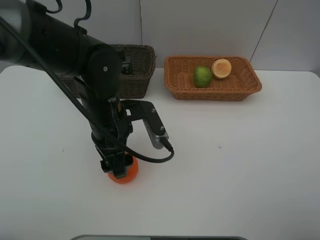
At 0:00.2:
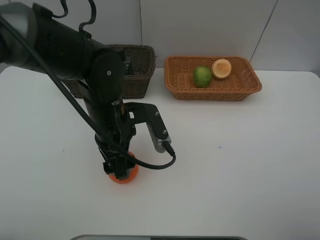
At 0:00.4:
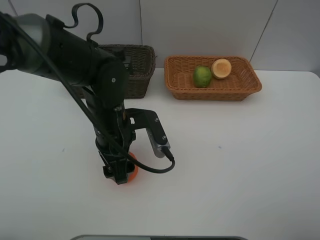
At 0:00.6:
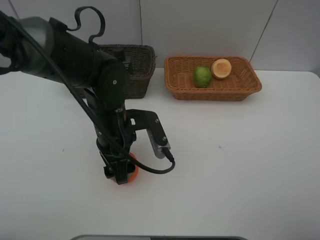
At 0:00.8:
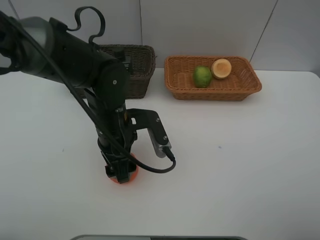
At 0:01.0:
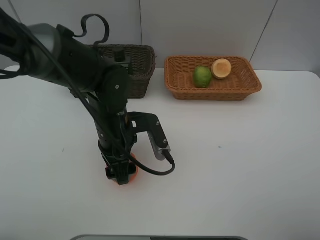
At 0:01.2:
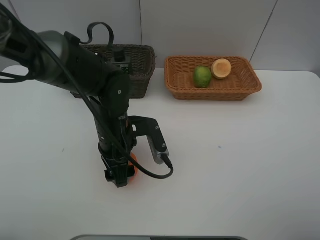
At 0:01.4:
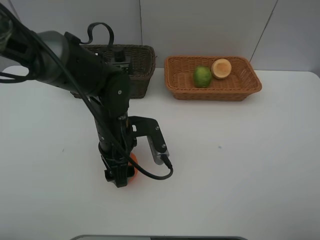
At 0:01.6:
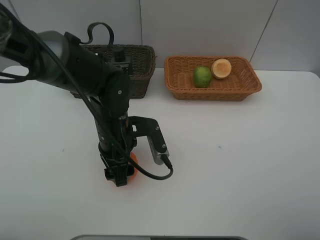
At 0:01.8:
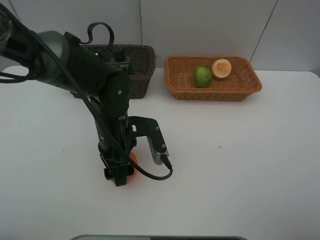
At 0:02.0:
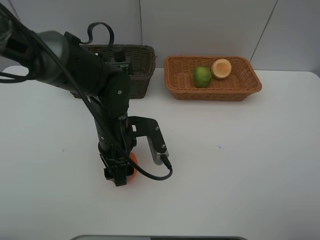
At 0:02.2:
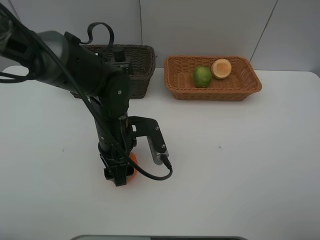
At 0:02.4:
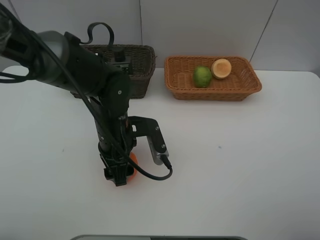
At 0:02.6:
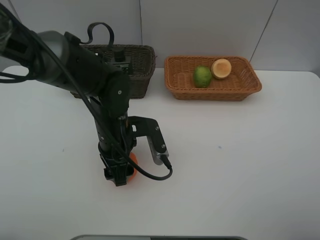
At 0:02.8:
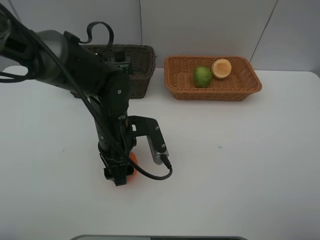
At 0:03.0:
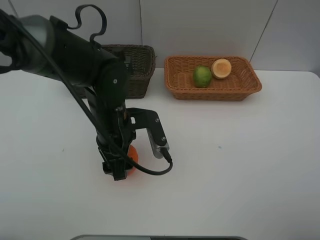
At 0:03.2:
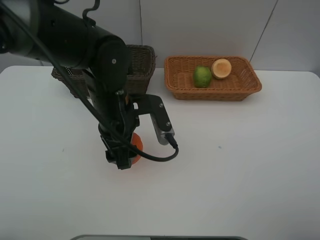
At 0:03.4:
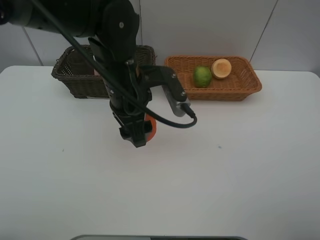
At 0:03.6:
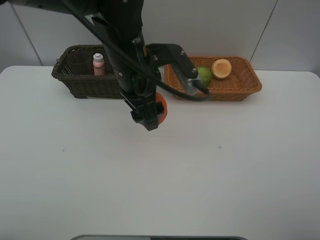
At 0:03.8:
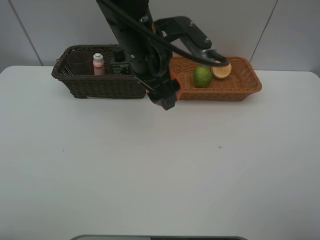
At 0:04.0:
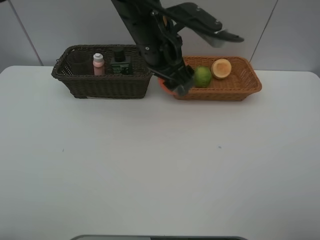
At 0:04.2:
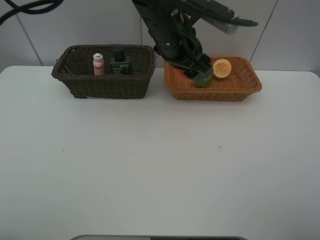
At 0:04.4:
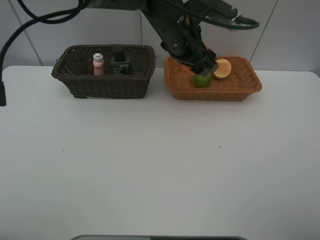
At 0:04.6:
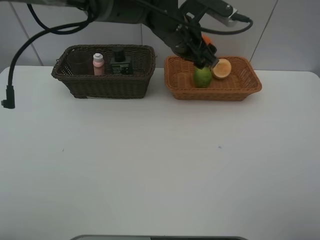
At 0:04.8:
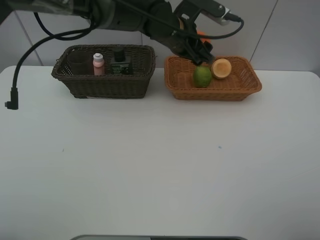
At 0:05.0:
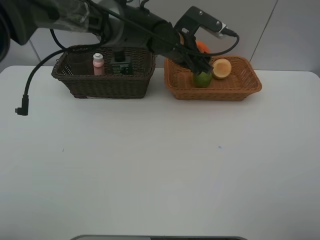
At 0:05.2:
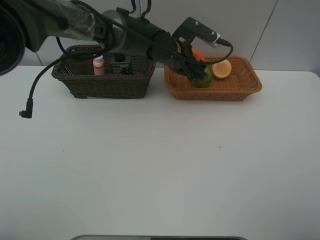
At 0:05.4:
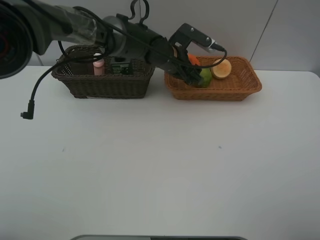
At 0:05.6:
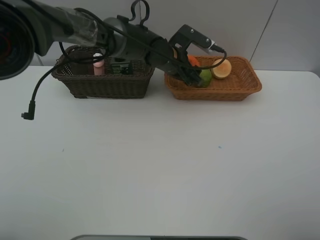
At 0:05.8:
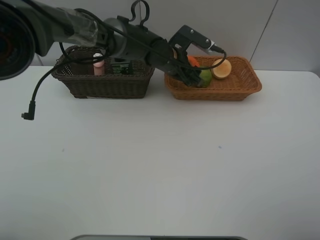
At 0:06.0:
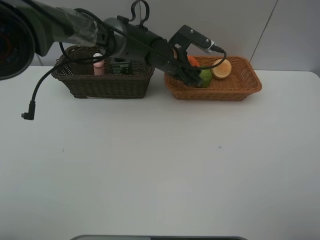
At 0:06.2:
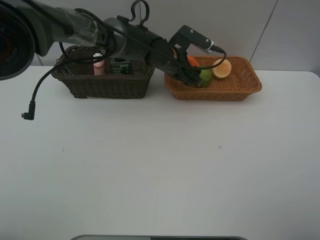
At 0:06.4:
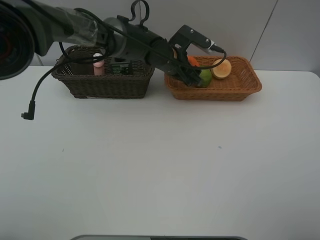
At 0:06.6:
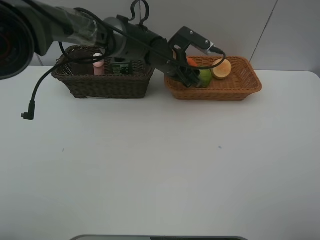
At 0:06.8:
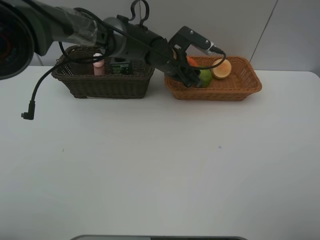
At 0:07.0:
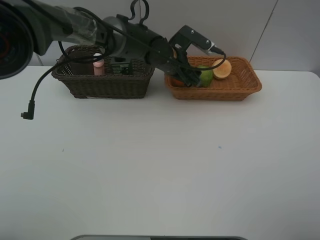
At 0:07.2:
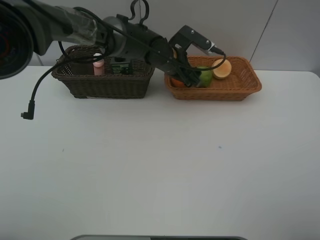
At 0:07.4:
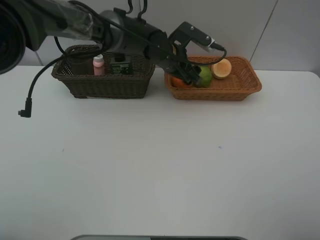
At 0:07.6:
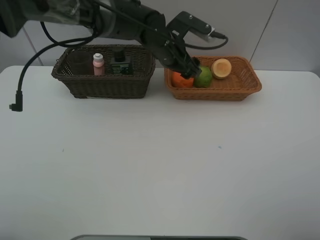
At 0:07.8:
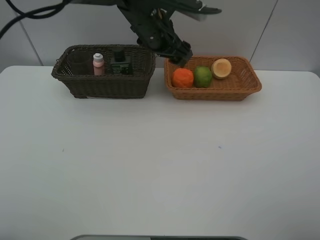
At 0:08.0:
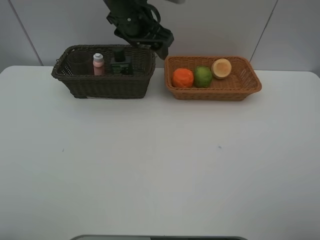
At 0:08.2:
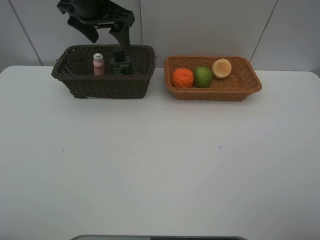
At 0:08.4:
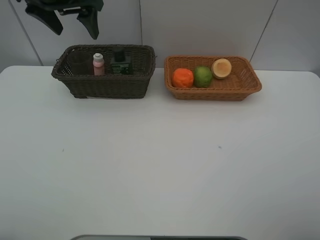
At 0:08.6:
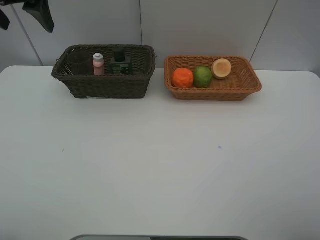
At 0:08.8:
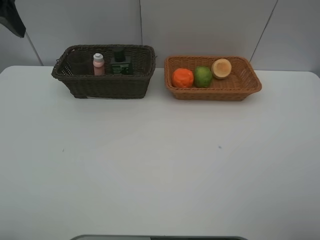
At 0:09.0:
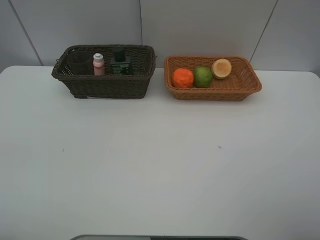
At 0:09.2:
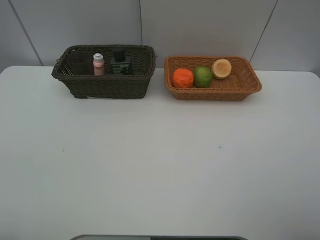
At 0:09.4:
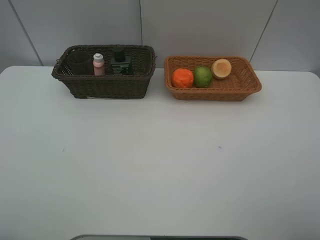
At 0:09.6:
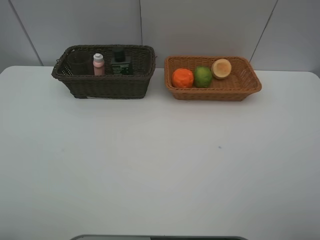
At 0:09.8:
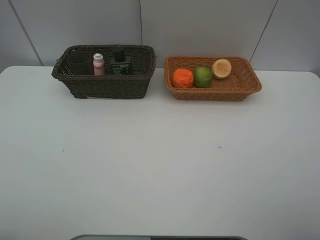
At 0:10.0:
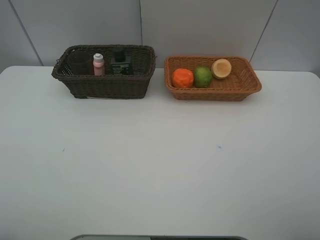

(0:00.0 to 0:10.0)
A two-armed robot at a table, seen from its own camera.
Task of the whole recording: place multiple objects separately in different baskets.
0:00.0 - 0:01.4: The grippers stay close to where they were, moving slightly.
0:01.4 - 0:02.8: The two grippers keep their place.
0:02.8 - 0:04.2: The left gripper travels upward, forward and to the right by approximately 20 cm.
0:04.2 - 0:05.8: The left gripper travels downward and forward by about 15 cm.
0:05.8 - 0:07.2: Both grippers stay put.
0:07.2 - 0:08.6: The left gripper is displaced to the left and upward by roughly 35 cm.
0:08.6 - 0:10.0: The left gripper is displaced backward by about 35 cm.

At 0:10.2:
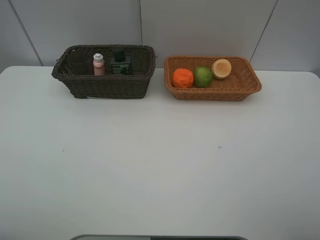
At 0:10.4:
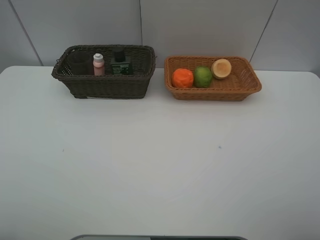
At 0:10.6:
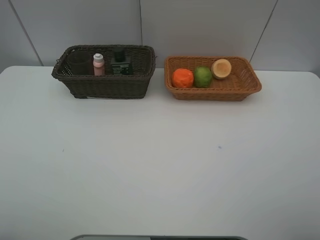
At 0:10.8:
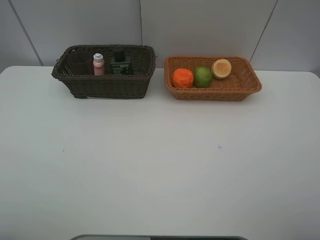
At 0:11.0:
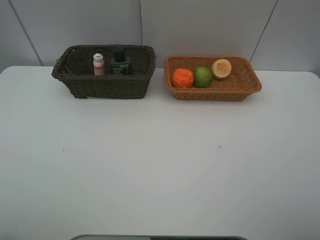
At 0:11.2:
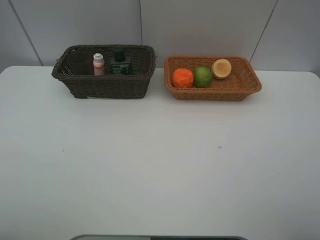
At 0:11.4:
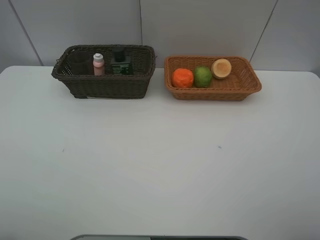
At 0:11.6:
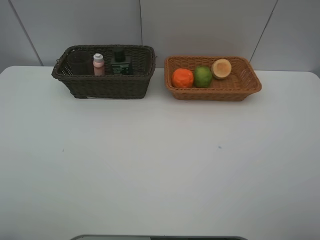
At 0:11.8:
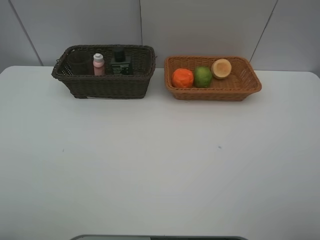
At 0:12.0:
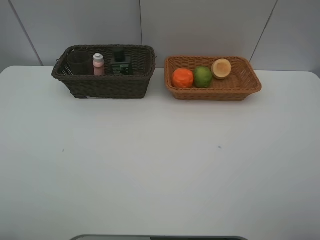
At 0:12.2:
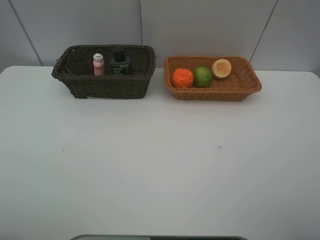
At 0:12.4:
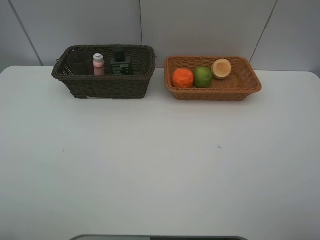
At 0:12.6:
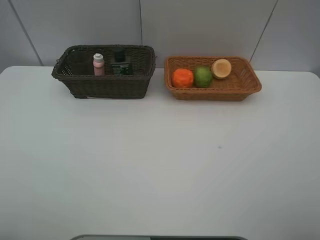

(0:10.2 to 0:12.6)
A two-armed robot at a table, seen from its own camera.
Task of the whole recording: place multiple objects separately in different baskets.
0:10.2 - 0:11.4: Both grippers stay put.
0:11.4 - 0:12.6: Neither gripper changes place.
